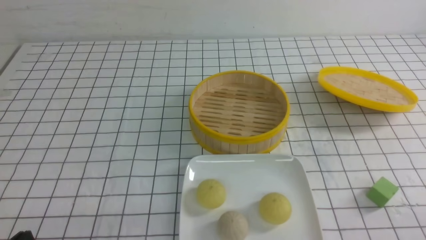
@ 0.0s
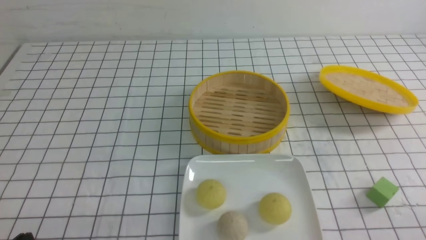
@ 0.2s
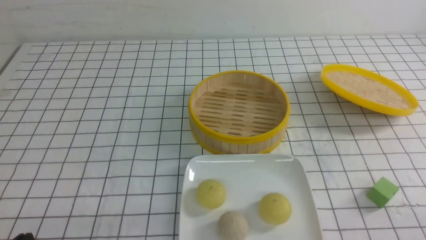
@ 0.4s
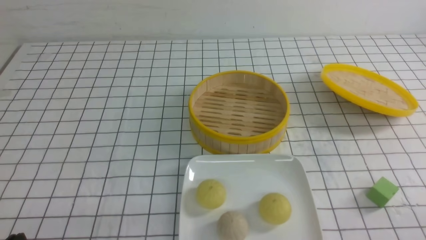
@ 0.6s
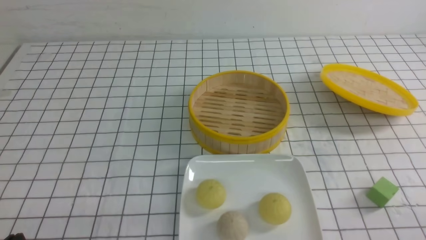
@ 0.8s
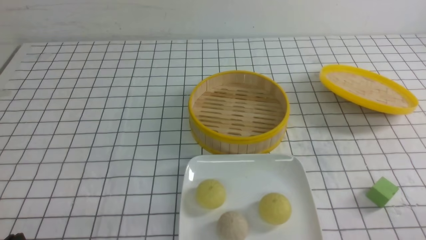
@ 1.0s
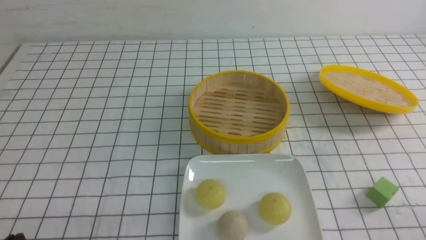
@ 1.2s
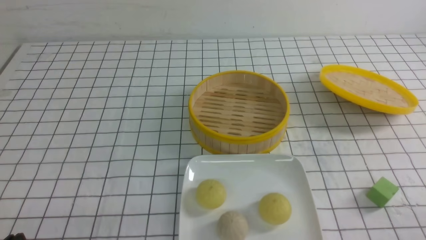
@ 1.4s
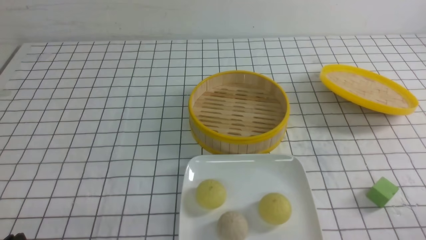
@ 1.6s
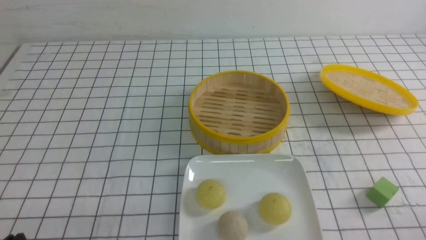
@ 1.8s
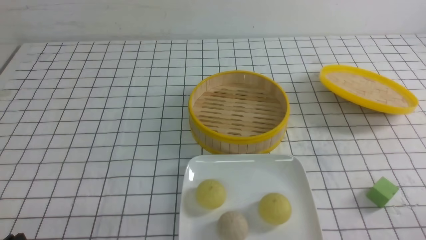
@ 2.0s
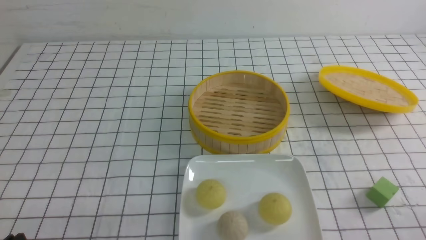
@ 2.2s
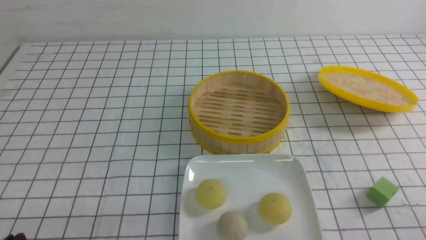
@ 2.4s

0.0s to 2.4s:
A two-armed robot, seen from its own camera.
0.0s to 2.4s: Both grippers stay put.

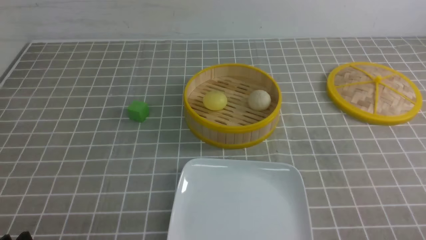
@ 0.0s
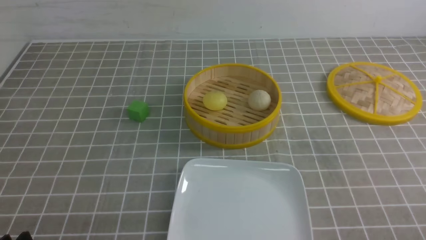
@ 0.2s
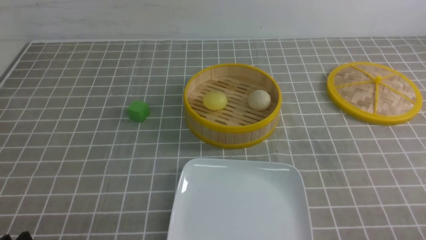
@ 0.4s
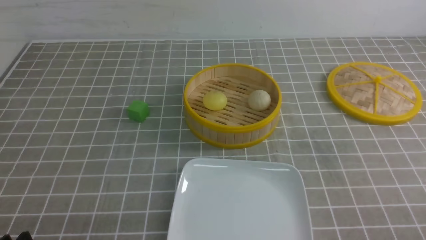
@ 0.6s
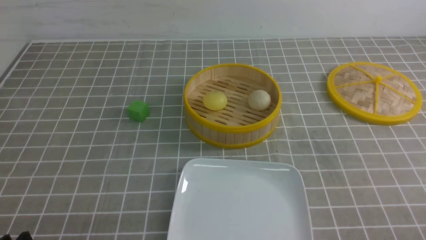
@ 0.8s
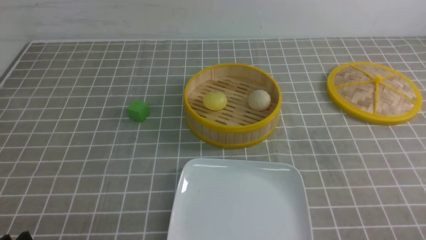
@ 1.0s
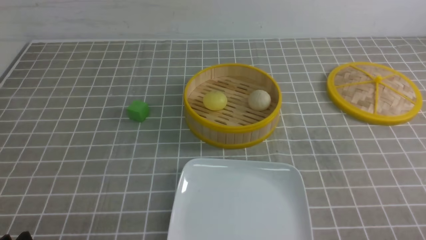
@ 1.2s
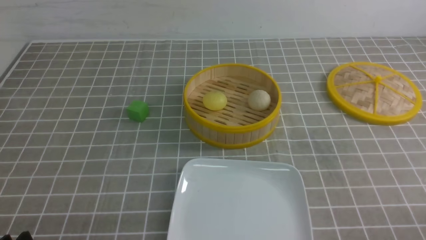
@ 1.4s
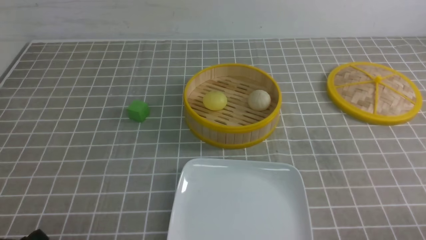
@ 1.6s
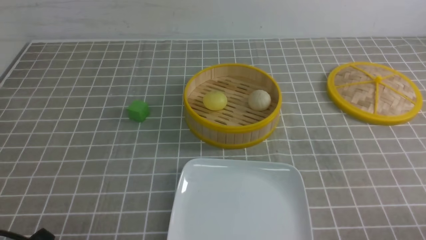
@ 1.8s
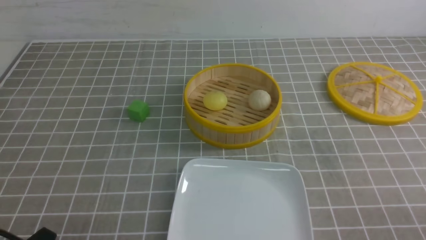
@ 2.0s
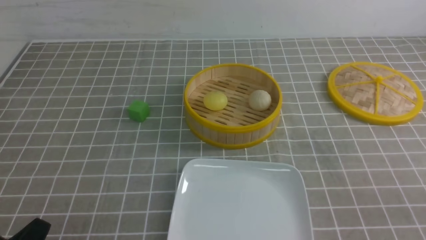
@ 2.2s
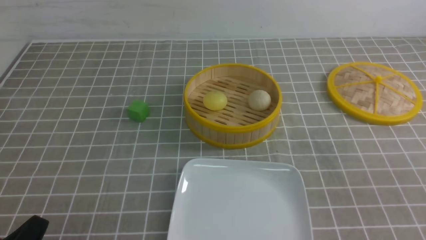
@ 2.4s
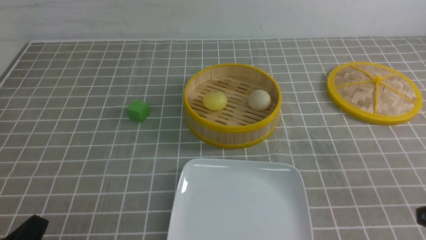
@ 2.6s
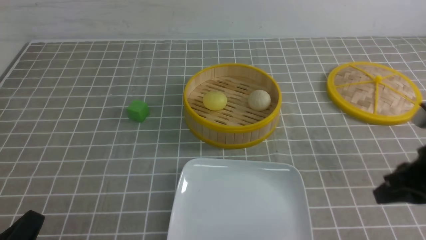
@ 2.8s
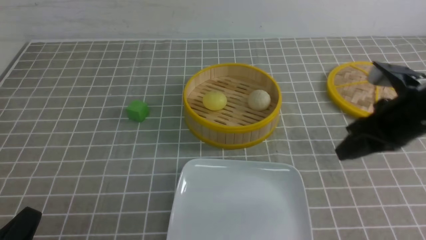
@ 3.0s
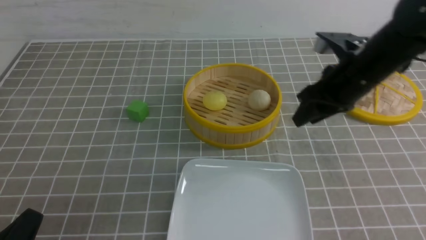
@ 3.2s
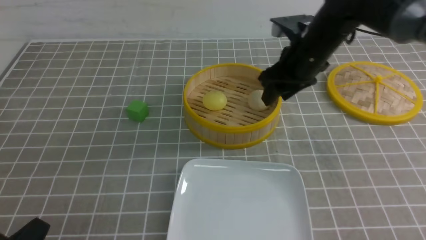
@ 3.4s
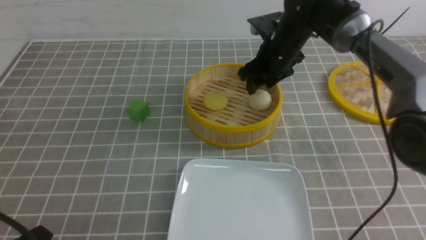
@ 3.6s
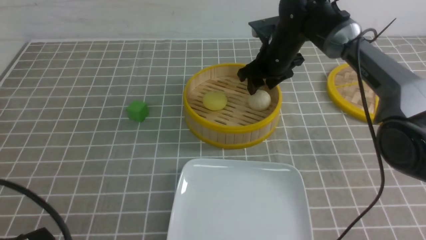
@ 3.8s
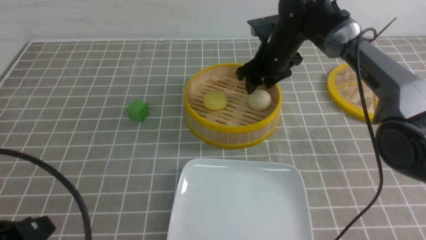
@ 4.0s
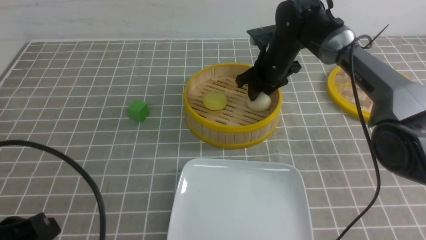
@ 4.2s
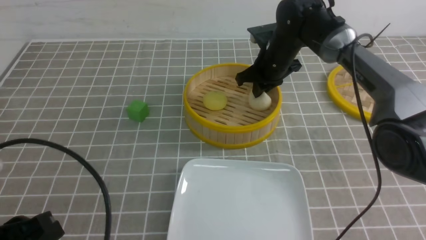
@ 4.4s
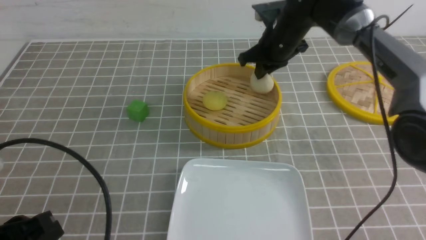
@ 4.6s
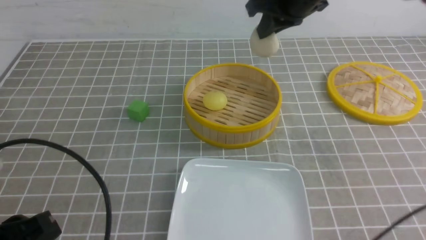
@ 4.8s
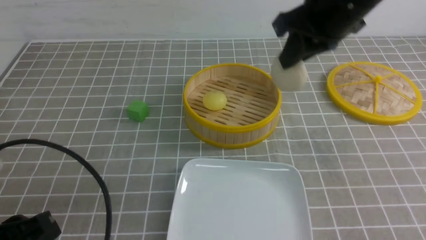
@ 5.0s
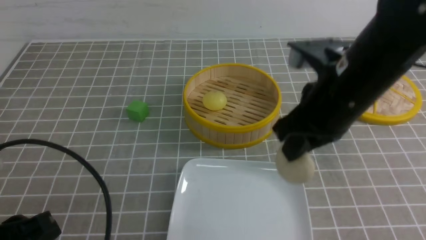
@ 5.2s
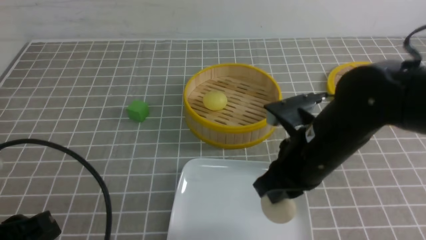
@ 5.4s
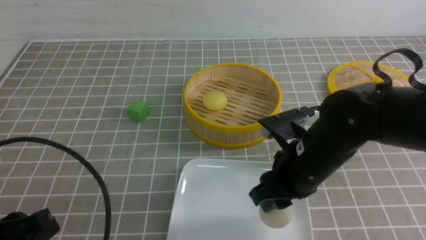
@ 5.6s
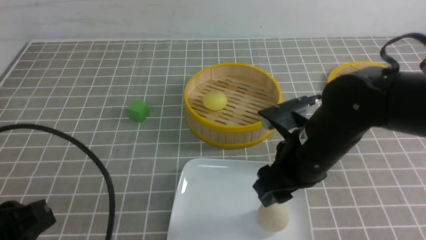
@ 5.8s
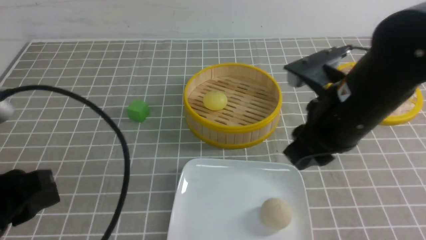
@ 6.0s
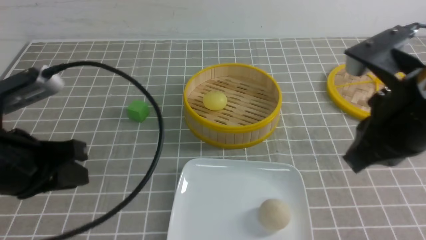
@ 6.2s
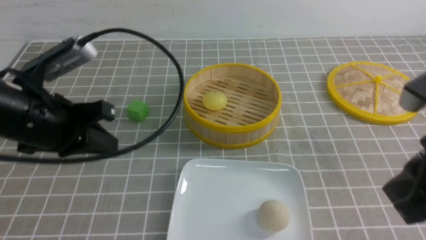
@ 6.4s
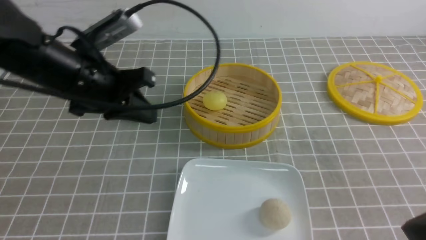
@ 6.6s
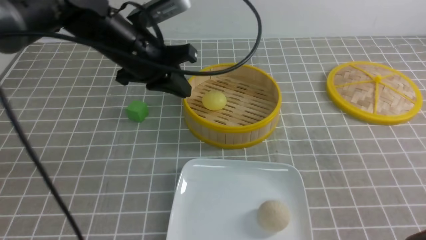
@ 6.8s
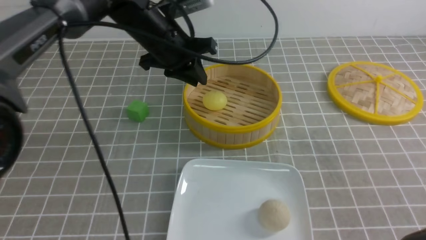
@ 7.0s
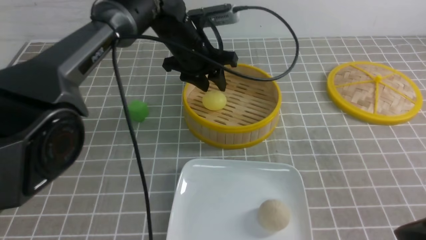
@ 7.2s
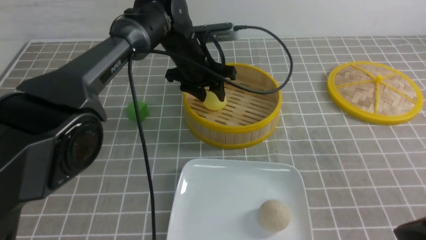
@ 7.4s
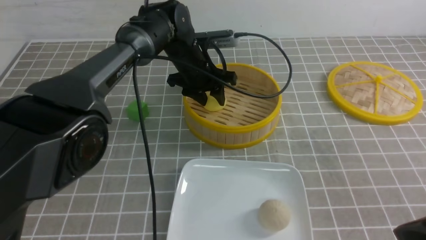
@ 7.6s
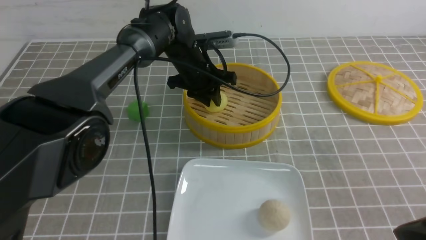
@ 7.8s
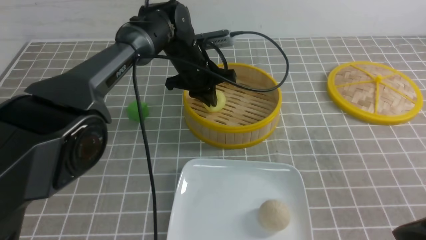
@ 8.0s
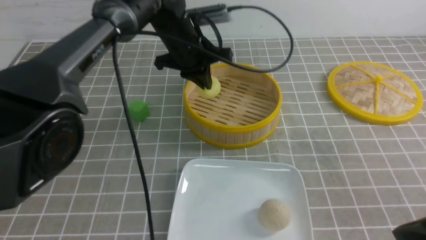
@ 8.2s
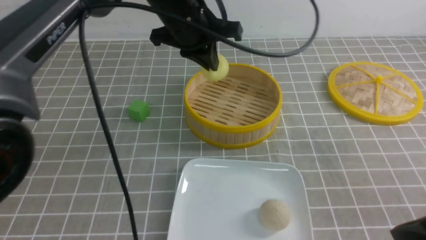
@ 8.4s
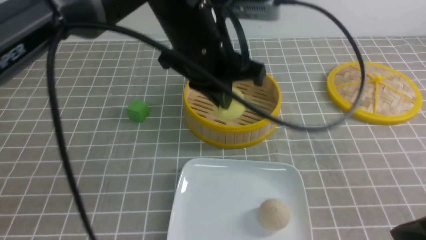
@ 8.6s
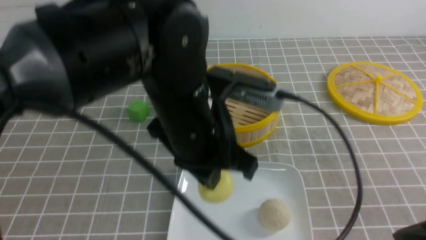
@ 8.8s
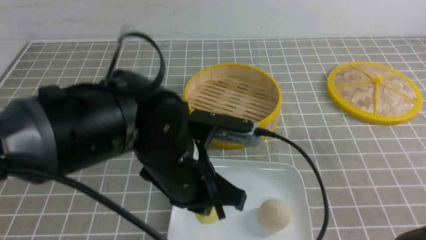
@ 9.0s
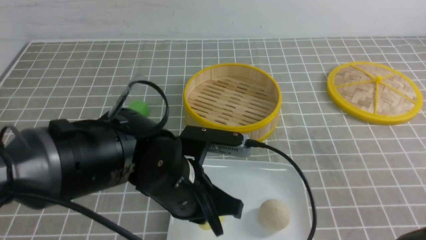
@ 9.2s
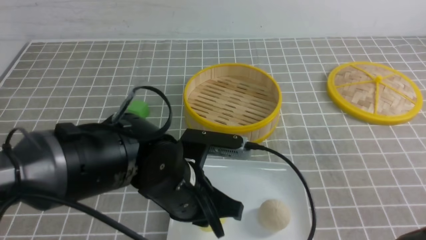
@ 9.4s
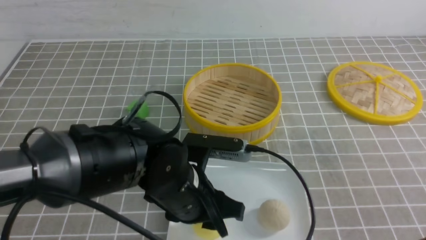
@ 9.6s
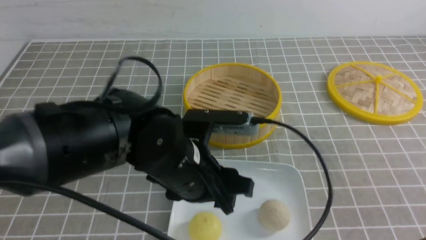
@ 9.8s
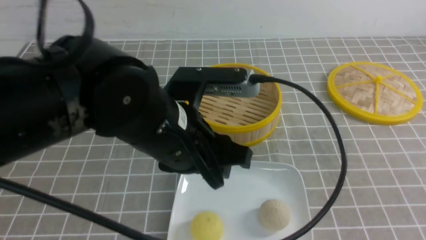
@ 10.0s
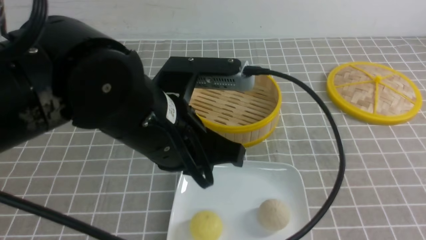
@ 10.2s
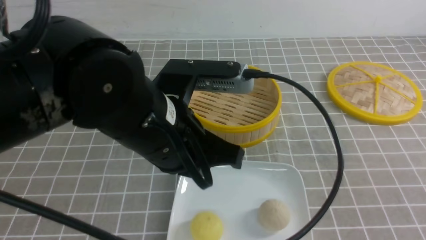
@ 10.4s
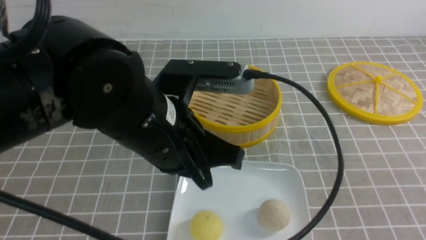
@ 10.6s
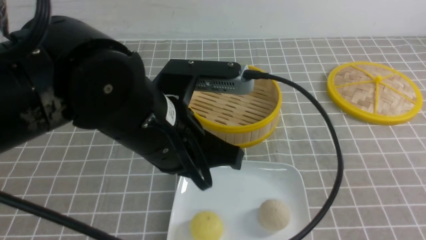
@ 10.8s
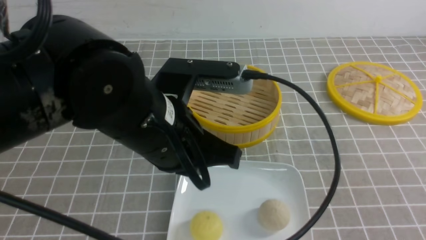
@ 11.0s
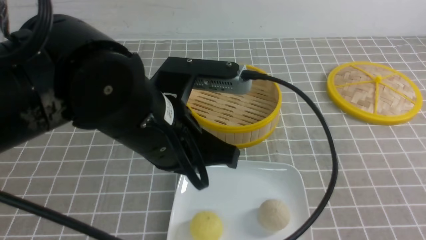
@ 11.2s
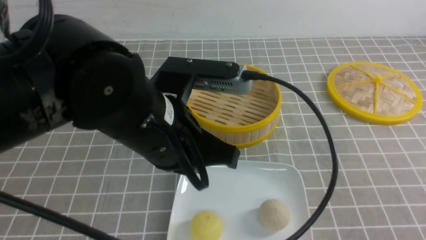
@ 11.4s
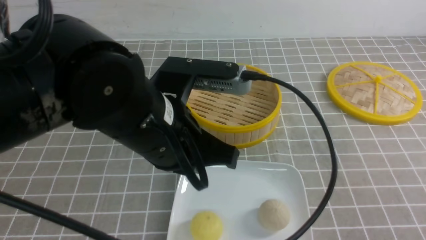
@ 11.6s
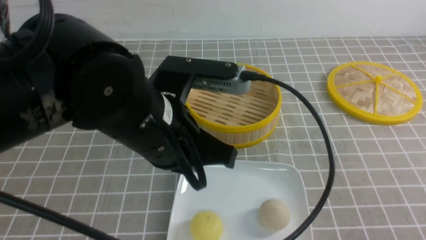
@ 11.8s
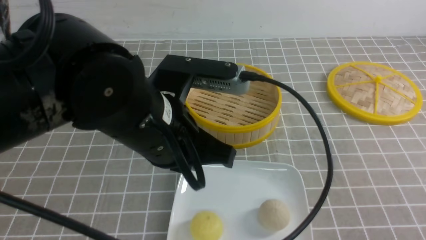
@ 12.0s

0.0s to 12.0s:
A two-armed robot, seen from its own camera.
Step, 0.0s to 4.4s: use the right arm to grab the steamed stuffed bun that is closest to it.
Step, 4.8s to 5.8s: use the right arm to put the steamed stuffed bun into the plate.
Step, 6.0s to 8.0s: use the left arm to grab the steamed stuffed bun that is closest to it.
Step, 8.2s to 9.6s: use the left arm to put the steamed stuffed bun into the plate.
1.6s to 3.0s: The right gripper travels forward and upward by roughly 25 cm, and closes, then opens again.
3.0s to 4.4s: The left gripper heads upward, covering approximately 5 cm. The right gripper goes roughly 25 cm forward and to the left, and opens, then closes again.
4.4s to 6.0s: The left gripper travels upward by about 5 cm; the right gripper travels backward by some 25 cm.
6.0s to 7.6s: The left gripper goes approximately 40 cm forward and to the right, and closes and opens again; the right gripper moves backward and to the right, approximately 15 cm, and closes.
7.6s to 9.0s: The left gripper travels backward by roughly 25 cm, and closes.
9.0s to 10.4s: The left gripper moves upward, some 5 cm, and opens and closes again. The right gripper moves backward and to the right, about 10 cm.
10.4s to 12.0s: The grippers make only small movements.

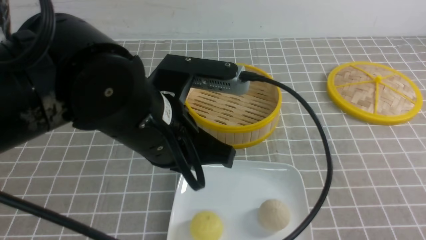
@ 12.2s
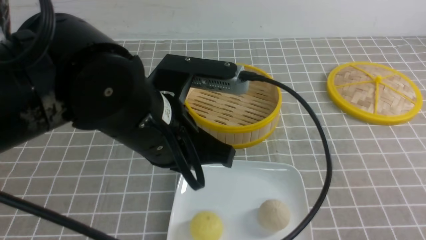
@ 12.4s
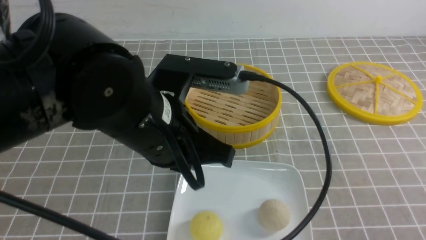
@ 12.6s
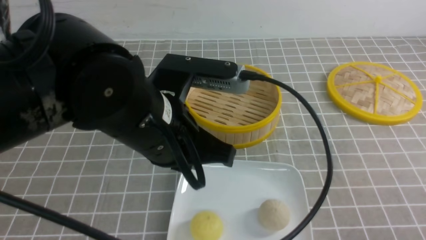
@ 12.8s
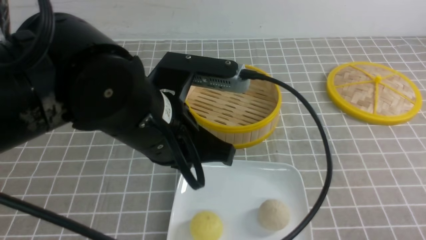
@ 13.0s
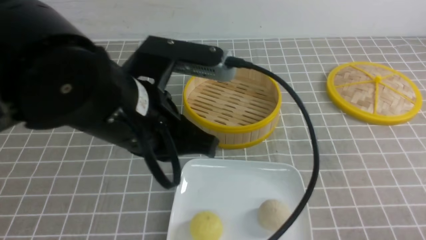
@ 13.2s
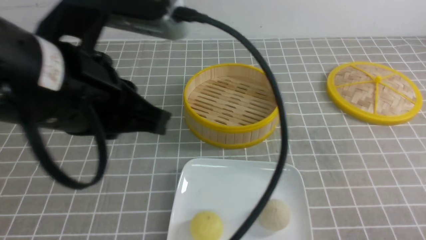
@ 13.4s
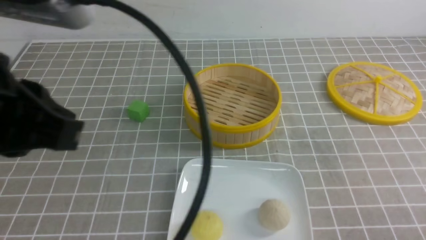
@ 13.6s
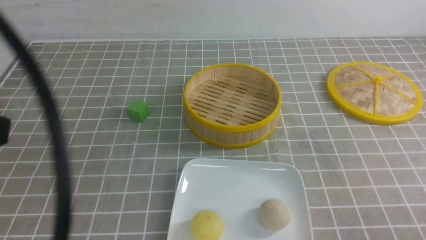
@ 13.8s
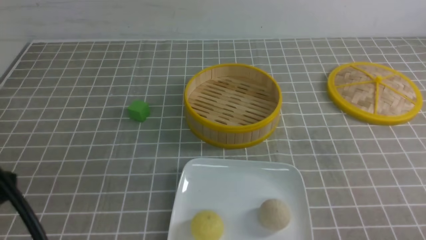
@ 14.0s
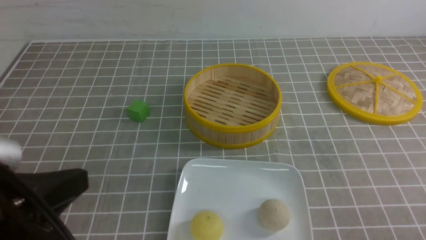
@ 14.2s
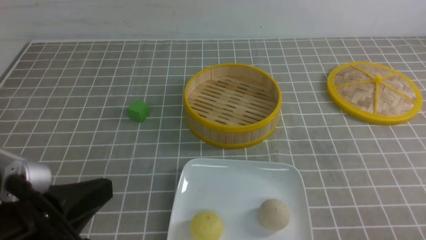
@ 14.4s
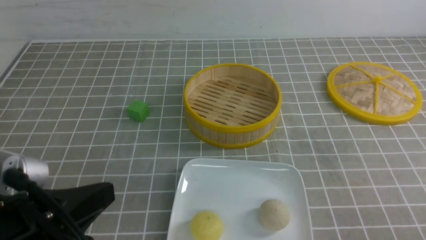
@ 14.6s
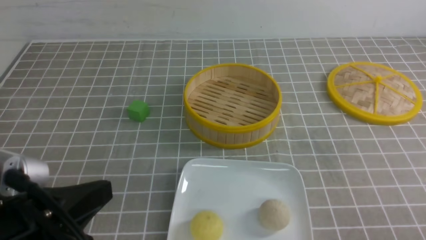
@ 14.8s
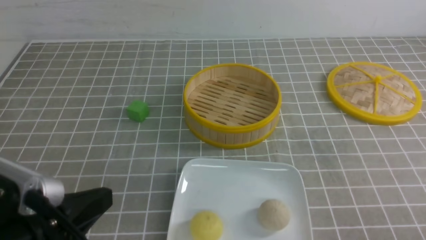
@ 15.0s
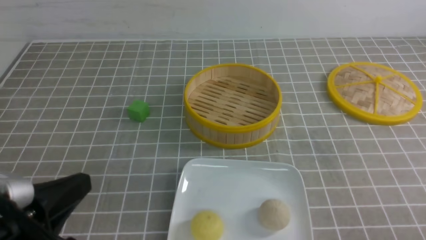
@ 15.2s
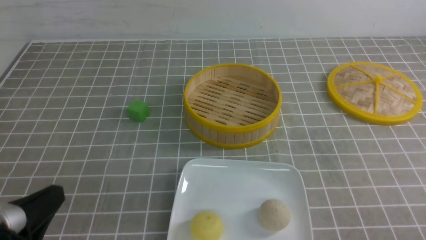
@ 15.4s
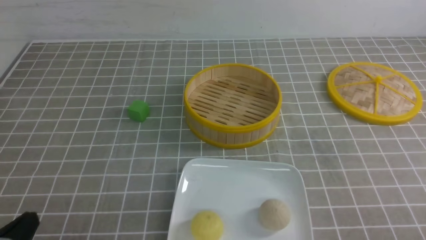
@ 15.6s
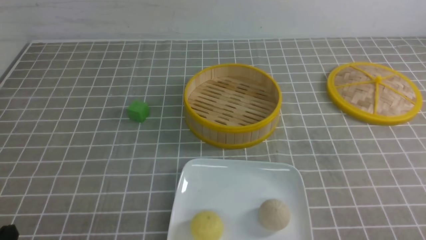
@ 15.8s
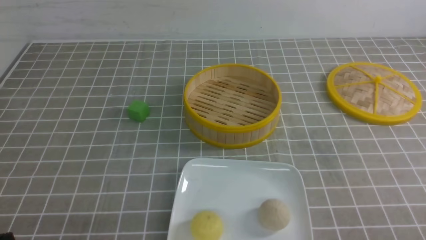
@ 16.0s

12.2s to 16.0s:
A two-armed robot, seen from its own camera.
12.2s to 13.4s: The right gripper moves downward, roughly 10 cm, while the left gripper heads upward and to the left, covering approximately 10 cm.
13.4s to 14.8s: The left gripper is displaced downward, backward and to the left by approximately 15 cm.
14.8s to 16.0s: The left gripper travels downward and to the left by roughly 15 cm.
